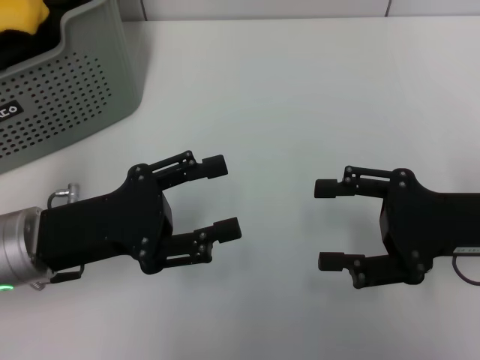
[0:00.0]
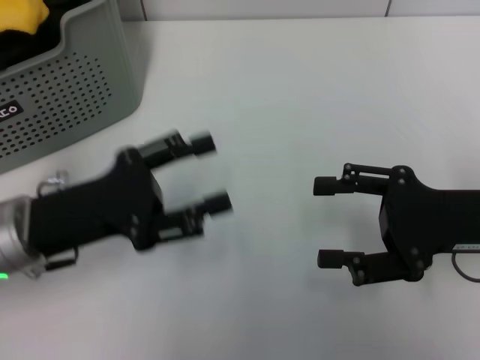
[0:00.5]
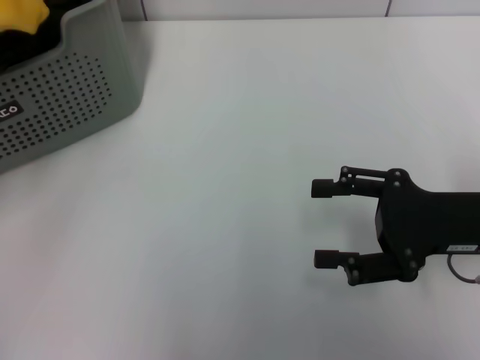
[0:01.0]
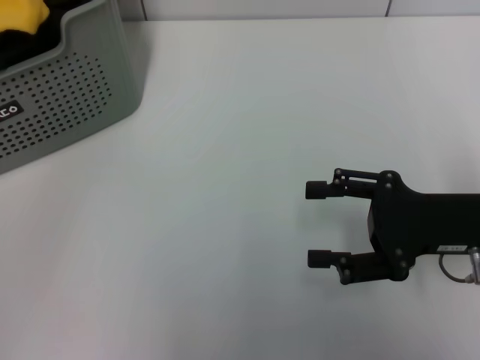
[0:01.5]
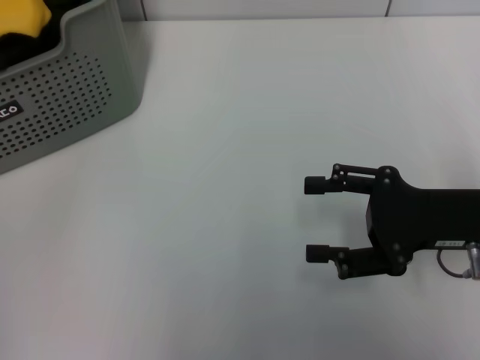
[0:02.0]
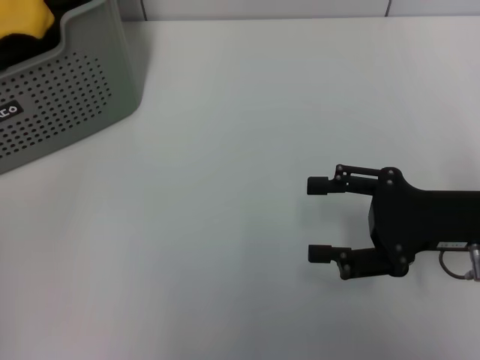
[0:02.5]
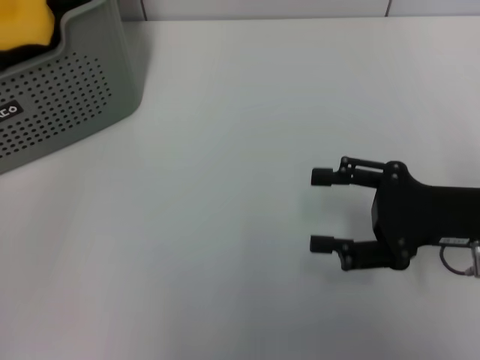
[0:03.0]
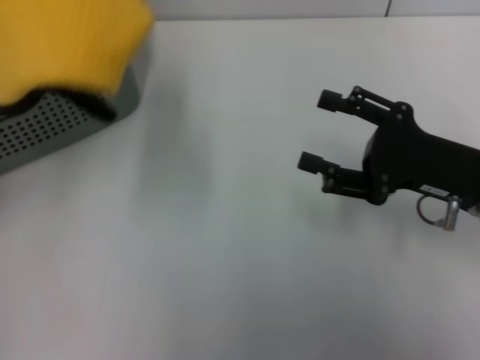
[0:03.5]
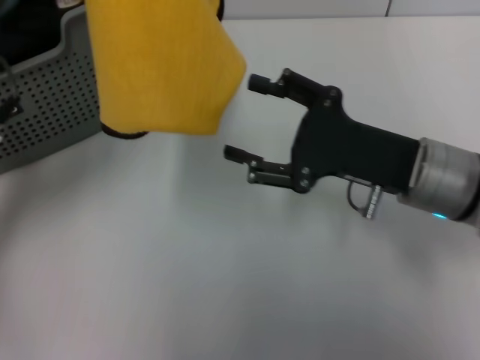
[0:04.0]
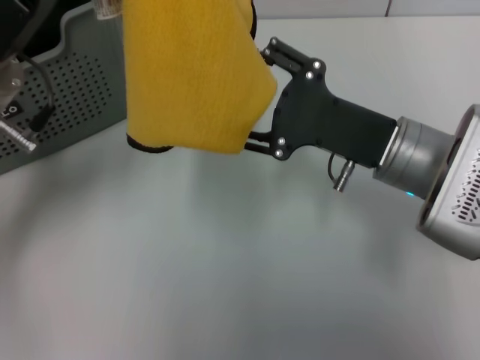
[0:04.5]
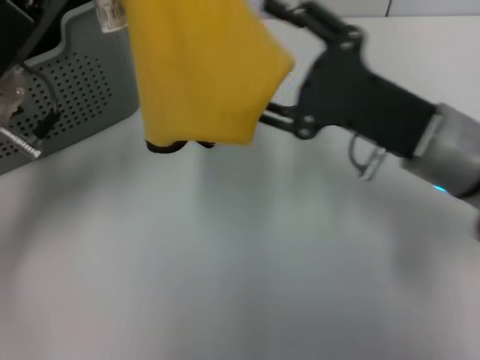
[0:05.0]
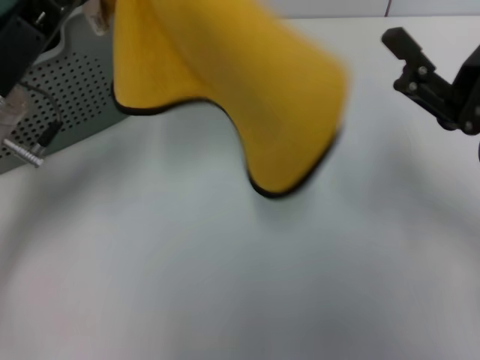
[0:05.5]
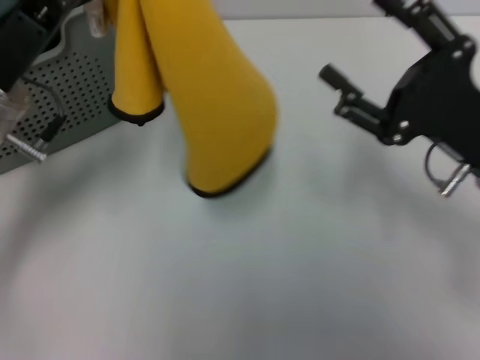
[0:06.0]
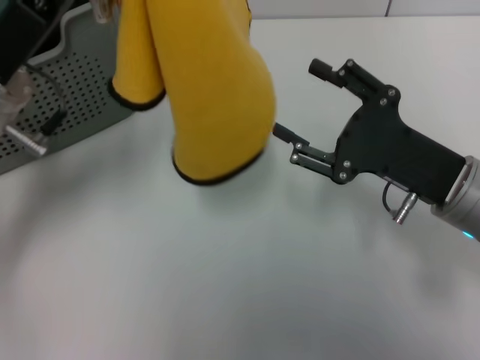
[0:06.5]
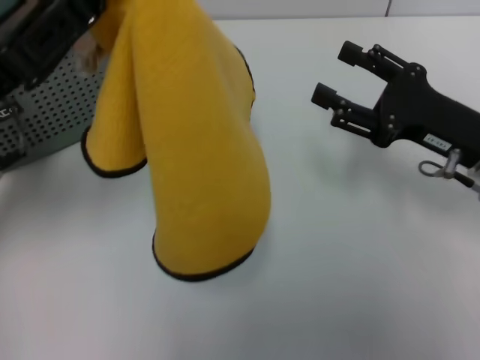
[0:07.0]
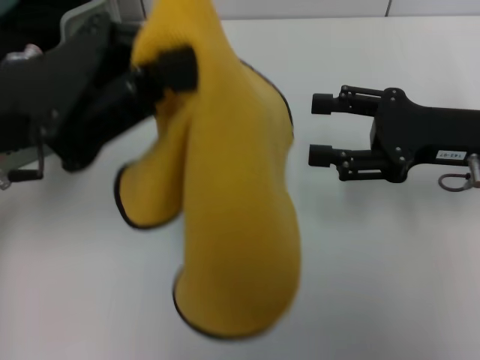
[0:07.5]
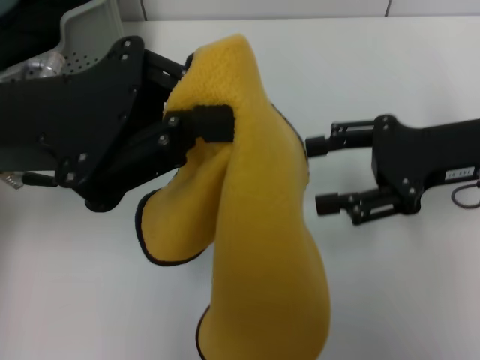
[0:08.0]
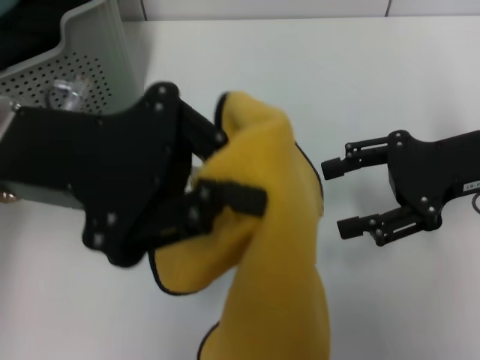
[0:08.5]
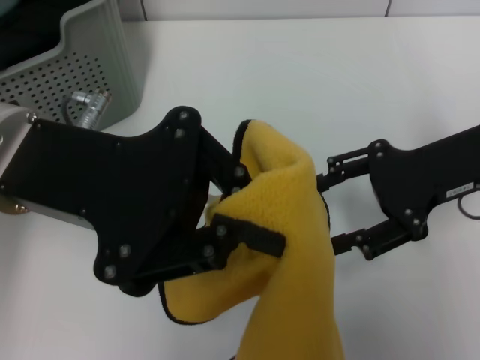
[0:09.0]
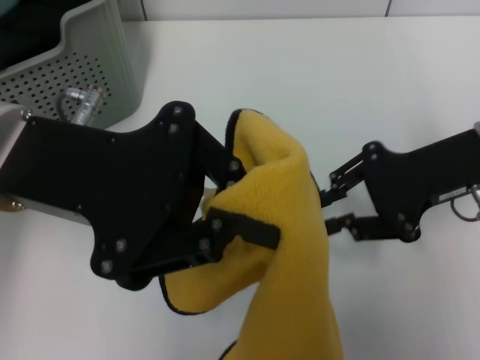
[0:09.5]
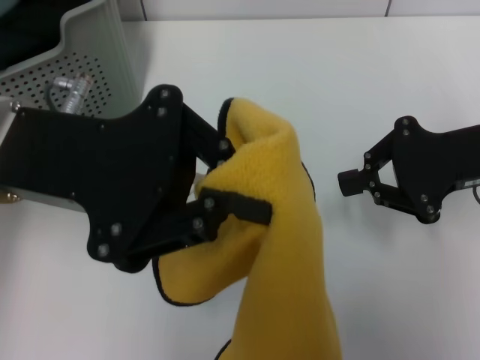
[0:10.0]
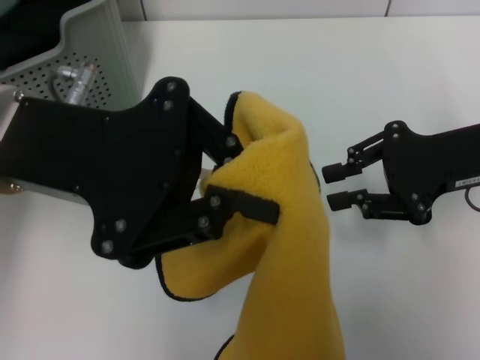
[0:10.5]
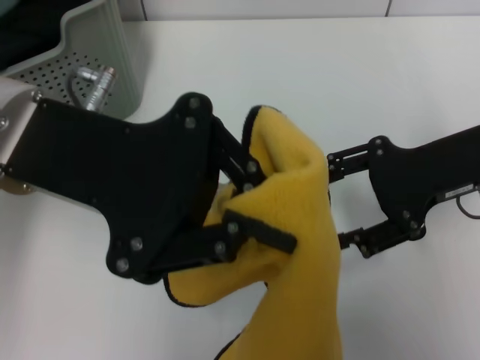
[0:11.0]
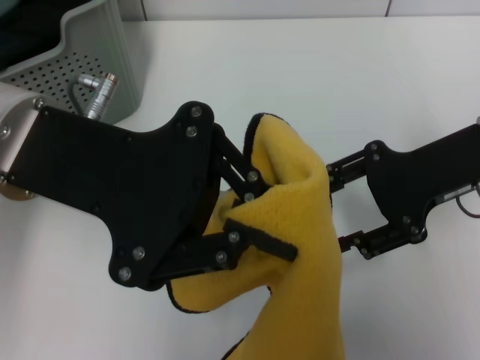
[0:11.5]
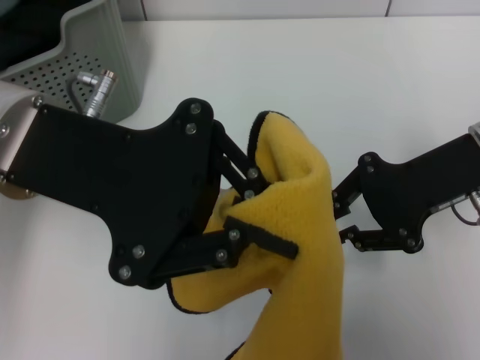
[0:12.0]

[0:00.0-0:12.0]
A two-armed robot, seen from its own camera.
Task of the whole recording: pick up the towel from the storage box and lay it flat on the table.
Step, 0:00.0 to 0:02.5: Pick up a towel with the left gripper.
0:00.0 to 0:02.0: The left gripper goes some 20 cm to the left, forward and upward.
0:02.0 to 0:04.0: The right gripper moves to the left, some 5 cm, while the left gripper heads to the right and backward, covering some 15 cm, and closes.
0:04.0 to 0:06.0: The right gripper goes some 5 cm to the right.
0:06.0 to 0:08.0: The left gripper moves upward, approximately 5 cm; the right gripper goes roughly 5 cm forward.
0:08.0 to 0:10.0: The right gripper closes.
0:10.0 to 0:12.0: The right gripper opens its fingers.

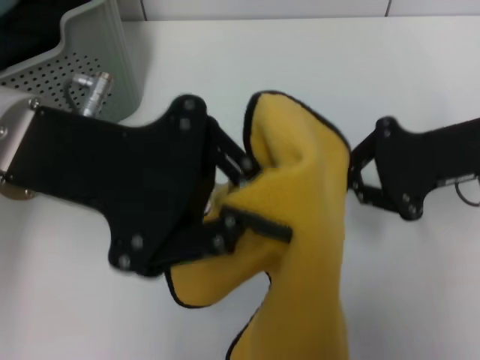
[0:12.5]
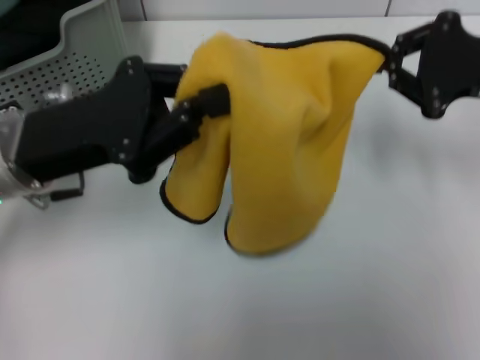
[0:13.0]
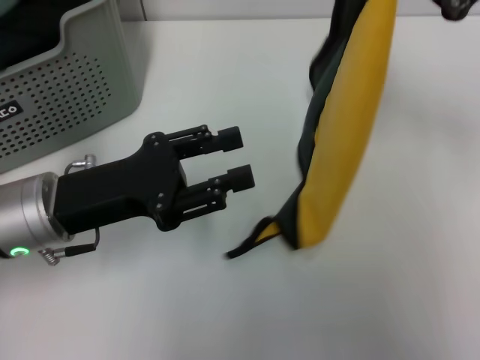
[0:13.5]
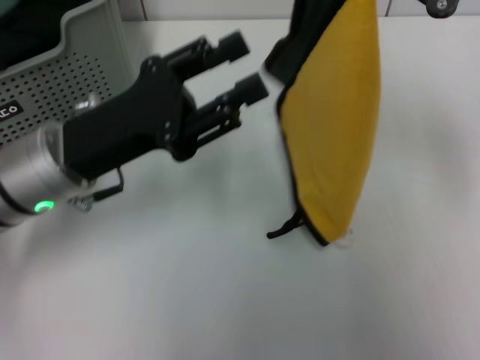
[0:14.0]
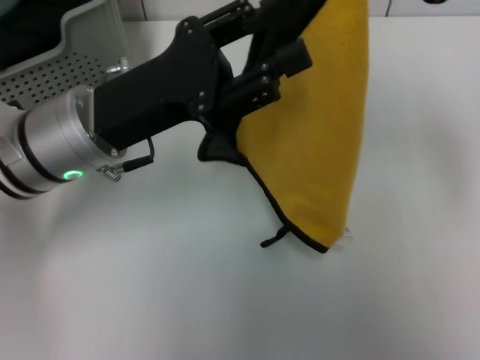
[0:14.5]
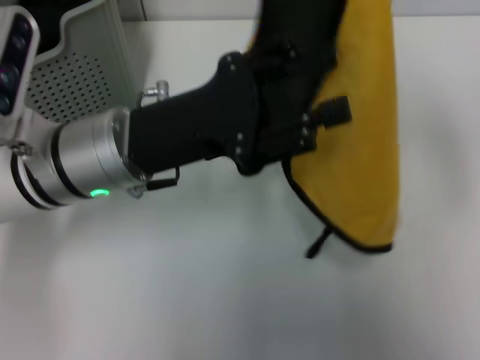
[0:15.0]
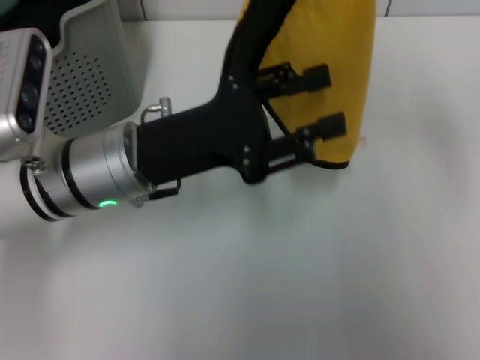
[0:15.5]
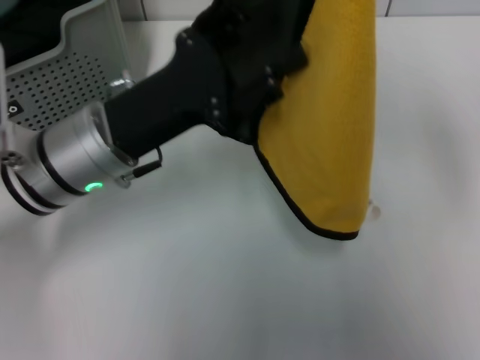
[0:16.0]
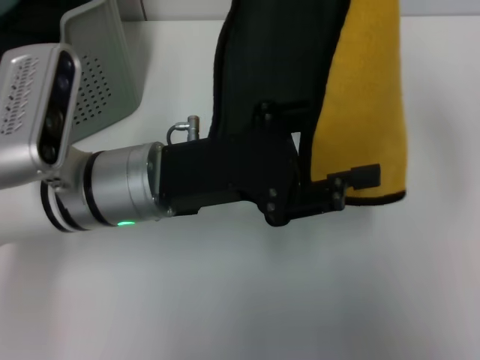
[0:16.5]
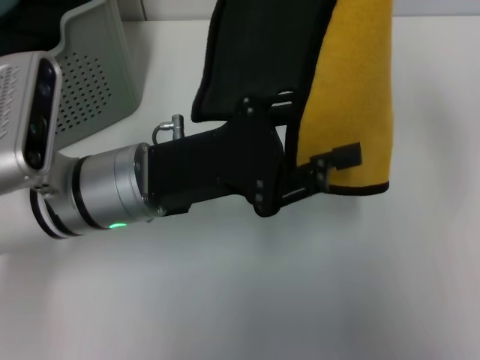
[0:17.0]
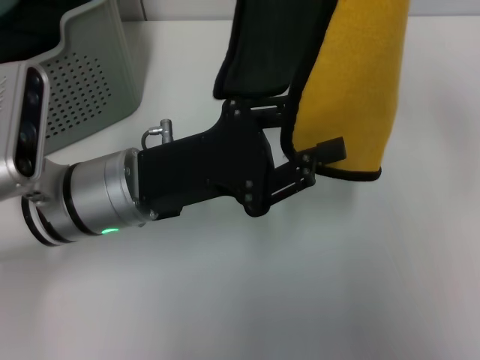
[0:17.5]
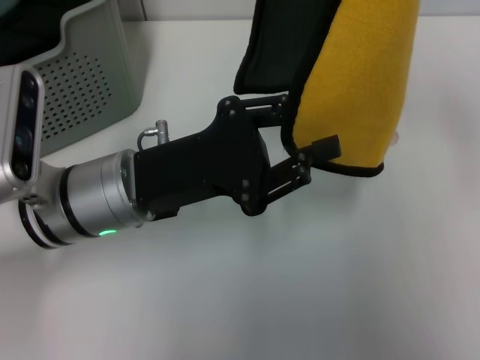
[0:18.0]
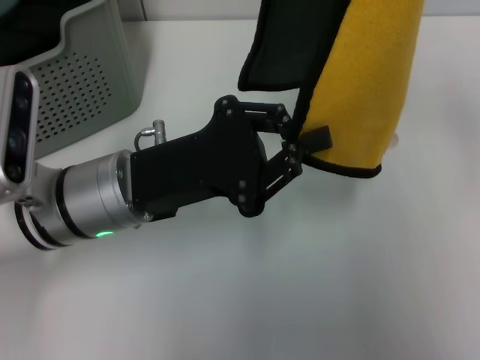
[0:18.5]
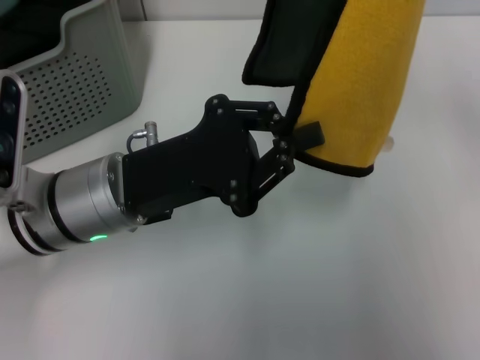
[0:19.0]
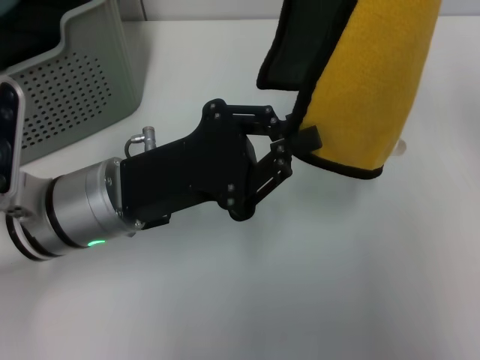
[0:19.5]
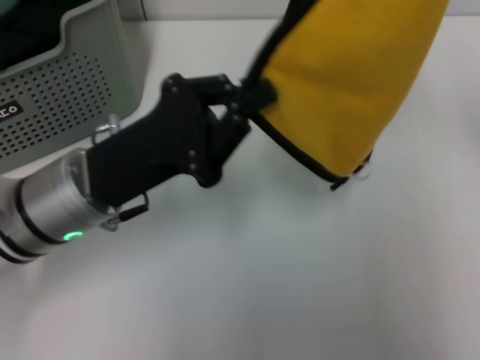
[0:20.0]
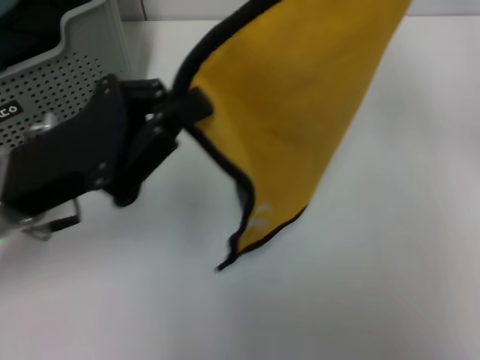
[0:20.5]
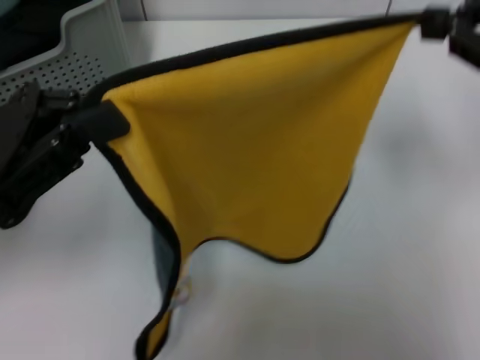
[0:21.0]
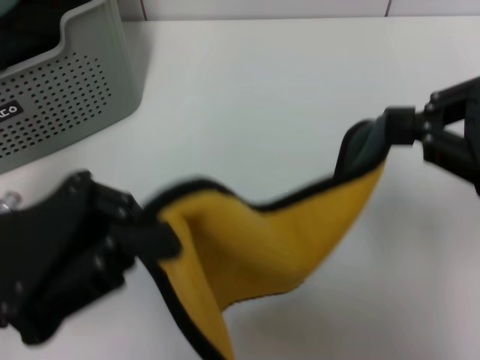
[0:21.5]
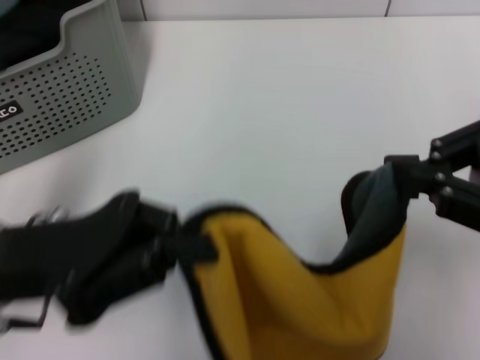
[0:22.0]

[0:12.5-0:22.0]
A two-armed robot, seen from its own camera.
Task of the whole recording: pick up the towel from the storage box and lay it flat on the table.
0:12.5 to 0:14.5: The left gripper shifts approximately 10 cm downward, and opens up. Meanwhile the right gripper moves upward, about 15 cm.
0:20.0 to 0:22.0: The left gripper moves backward, roughly 5 cm. Meanwhile the right gripper is displaced downward and backward by approximately 15 cm.

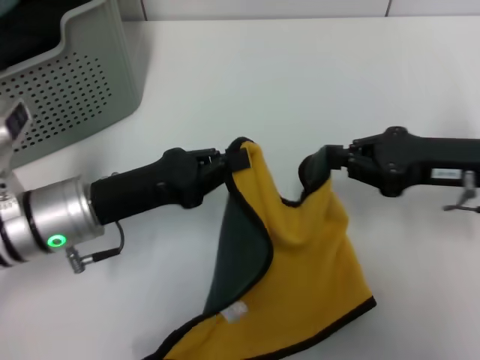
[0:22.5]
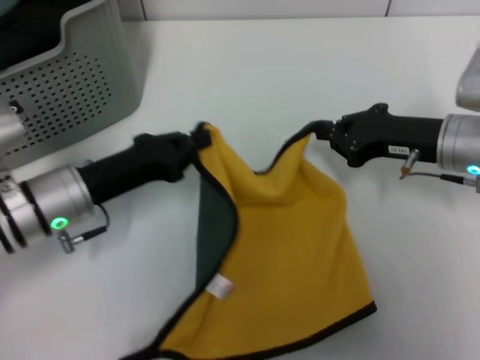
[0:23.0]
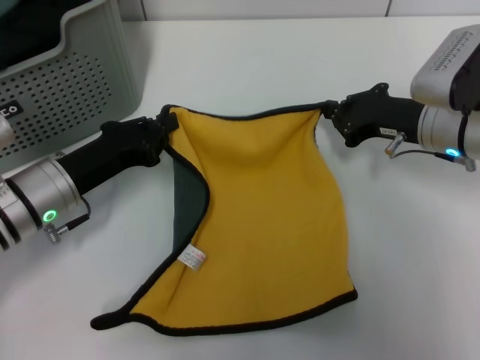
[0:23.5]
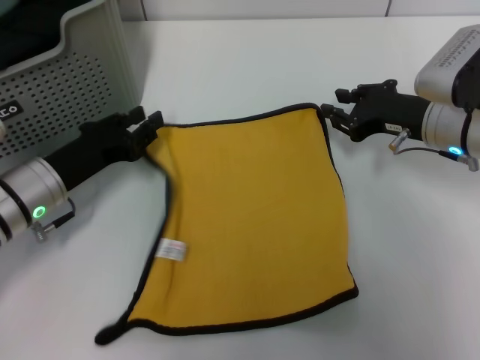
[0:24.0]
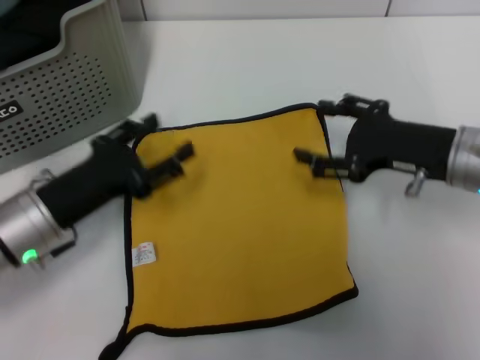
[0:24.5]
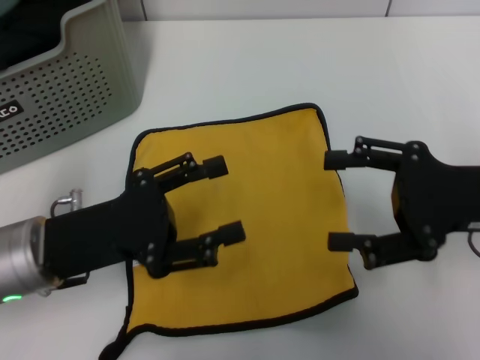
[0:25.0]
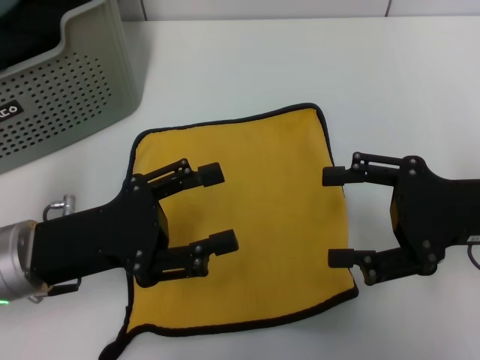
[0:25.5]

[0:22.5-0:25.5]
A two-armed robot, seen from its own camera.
Task of the whole recording: pick up the towel from the storage box and lay it flat on the table.
0:22.5 to 0:24.0: The right gripper is displaced forward by about 5 cm. Meanwhile the left gripper ends up roughly 5 cm from where it was.
0:24.0 to 0:25.5: The right gripper goes about 10 cm backward and upward, and opens its fingers. The left gripper heads backward, covering roughly 10 cm, and opens its fingers.
